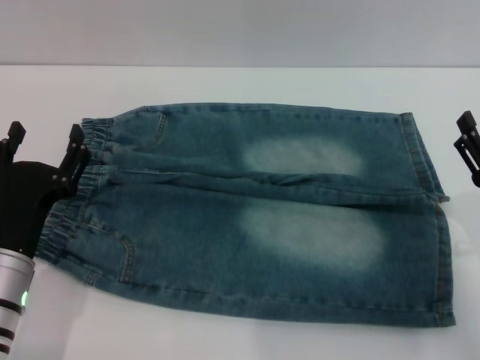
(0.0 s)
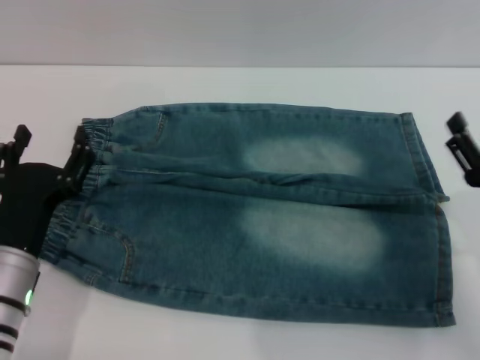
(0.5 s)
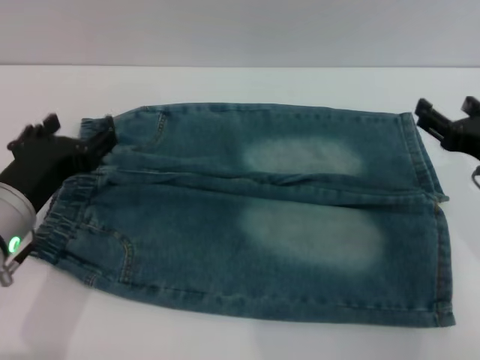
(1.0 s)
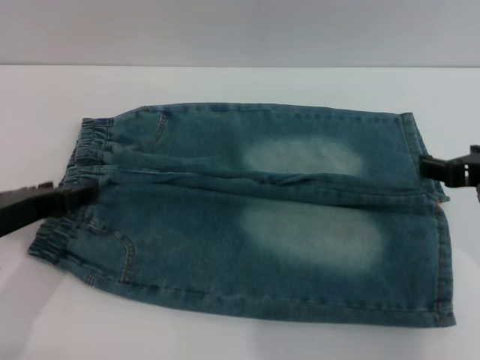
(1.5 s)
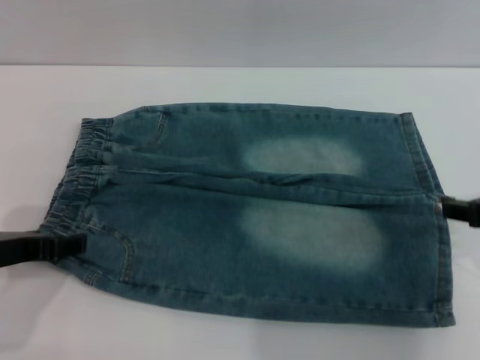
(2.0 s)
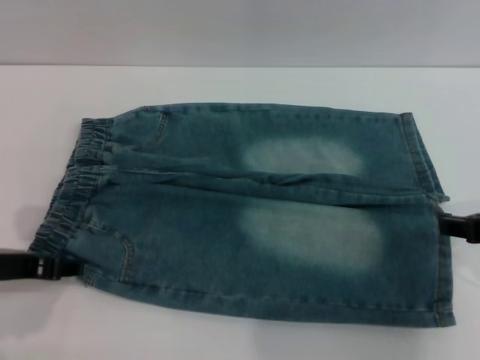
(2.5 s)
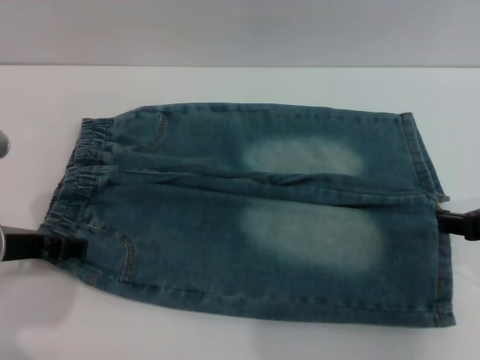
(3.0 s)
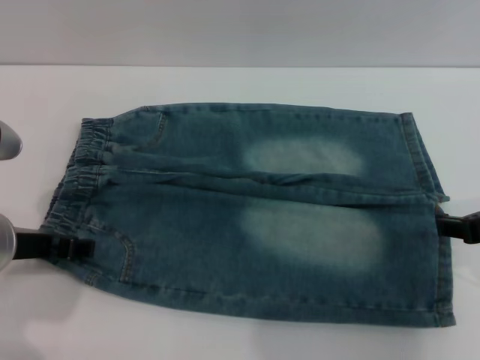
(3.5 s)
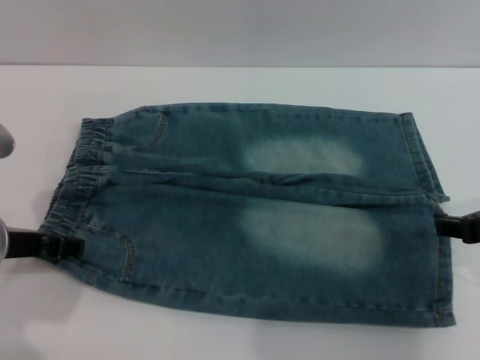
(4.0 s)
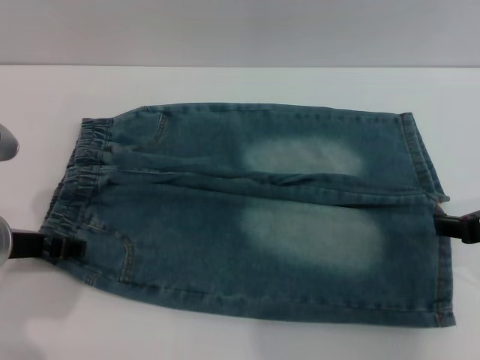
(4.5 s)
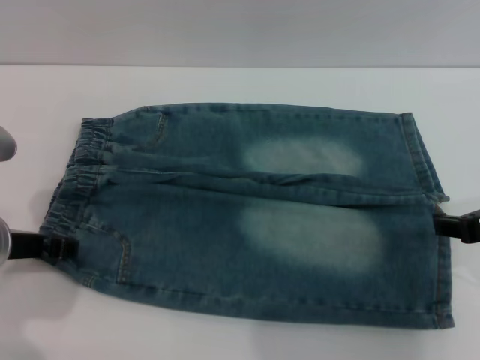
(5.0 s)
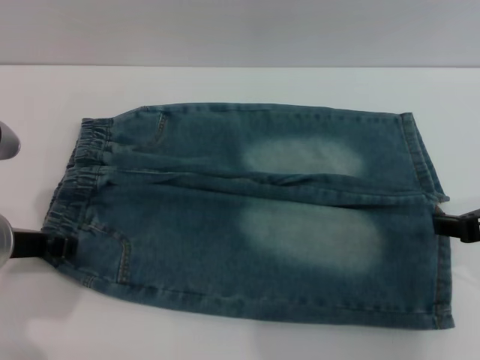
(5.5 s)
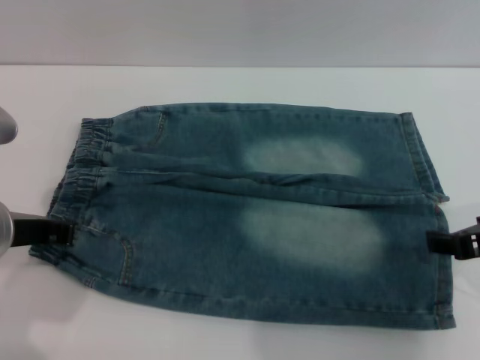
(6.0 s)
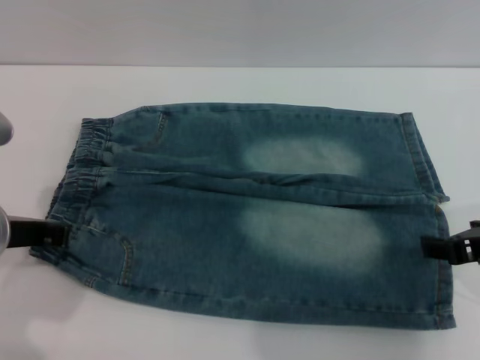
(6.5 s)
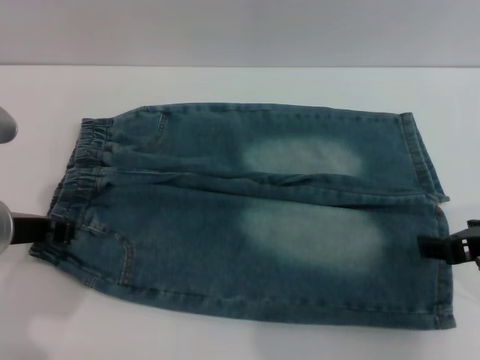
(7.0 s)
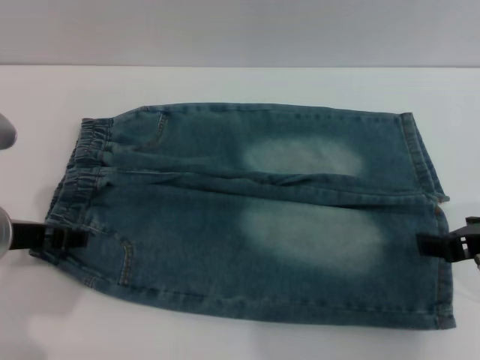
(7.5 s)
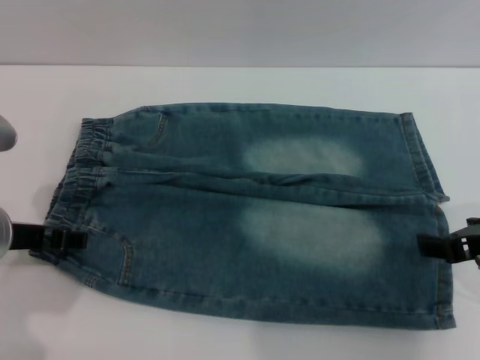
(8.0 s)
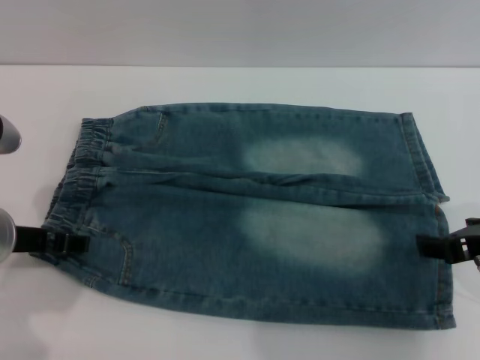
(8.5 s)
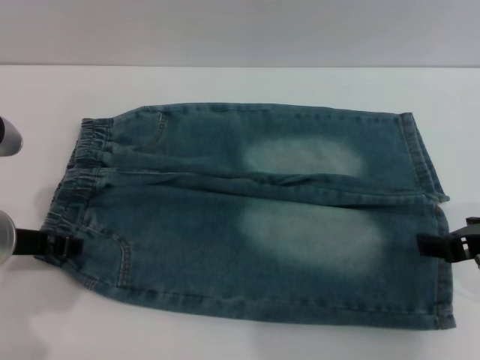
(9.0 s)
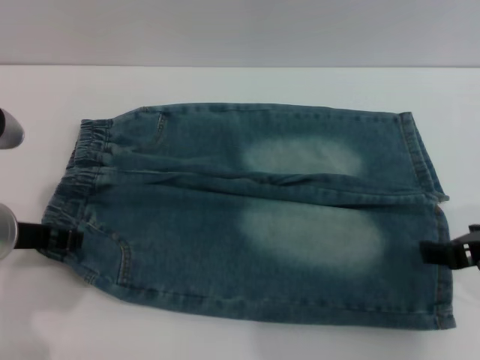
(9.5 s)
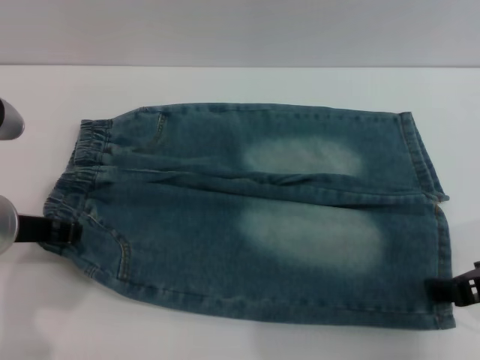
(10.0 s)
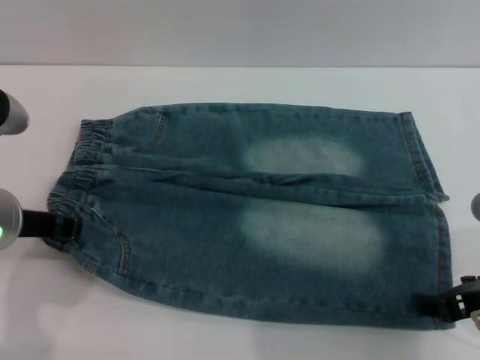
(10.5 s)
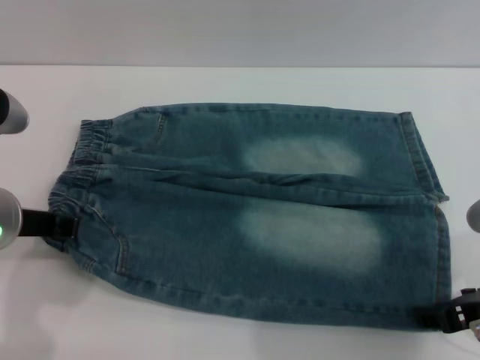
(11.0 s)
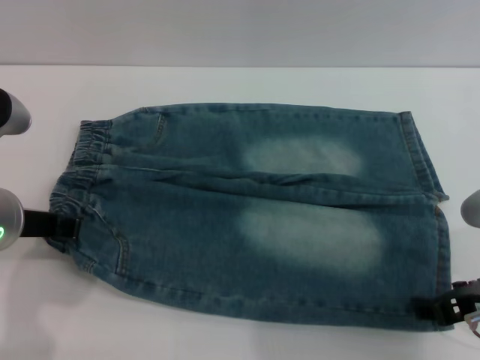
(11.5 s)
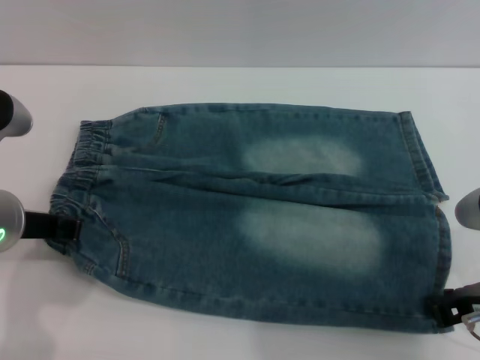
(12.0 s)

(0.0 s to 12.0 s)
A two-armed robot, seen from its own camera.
0.0 s - 2.0 s: Both grippers move upward, approximately 10 cm.
2.0 s - 4.0 s: The grippers move only a little.
4.0 s - 6.0 s: The left gripper closes.
6.0 s - 8.0 s: The left gripper opens.
8.0 s - 10.0 s: The left gripper closes up.
10.0 s - 12.0 s: The right gripper closes up.

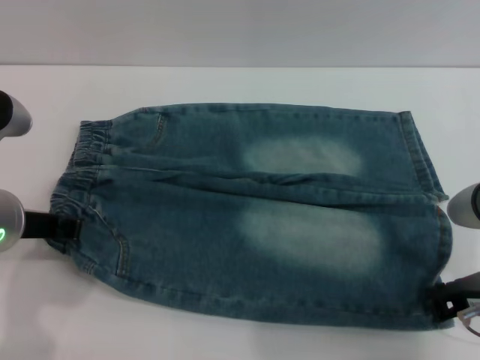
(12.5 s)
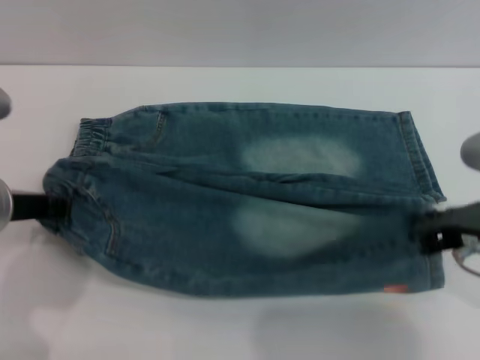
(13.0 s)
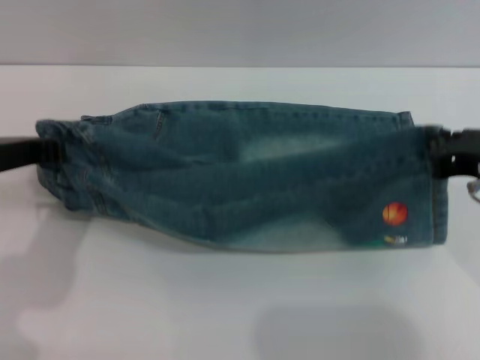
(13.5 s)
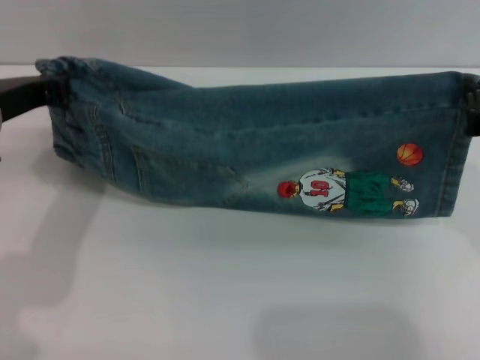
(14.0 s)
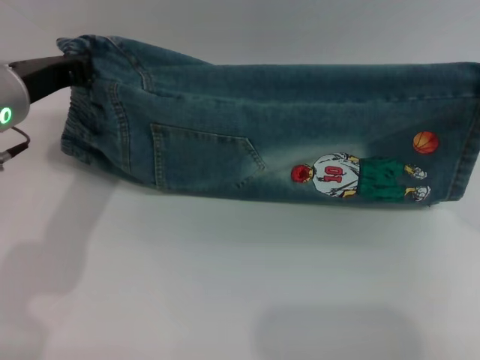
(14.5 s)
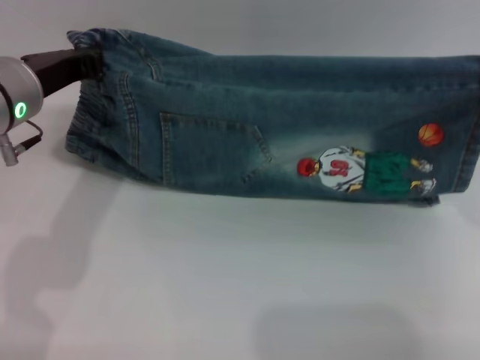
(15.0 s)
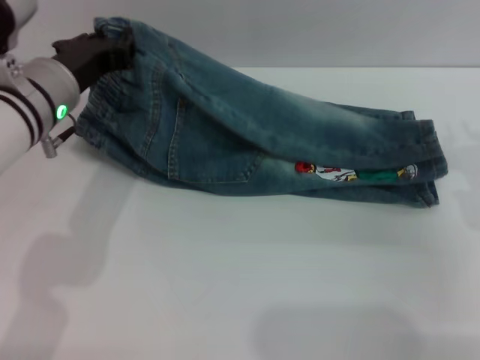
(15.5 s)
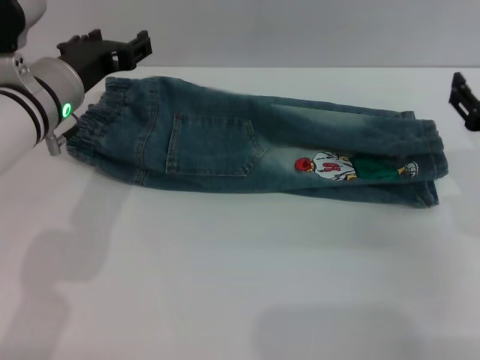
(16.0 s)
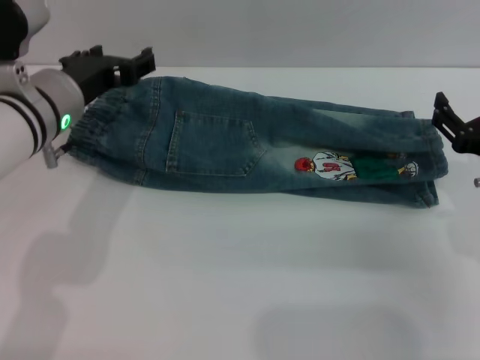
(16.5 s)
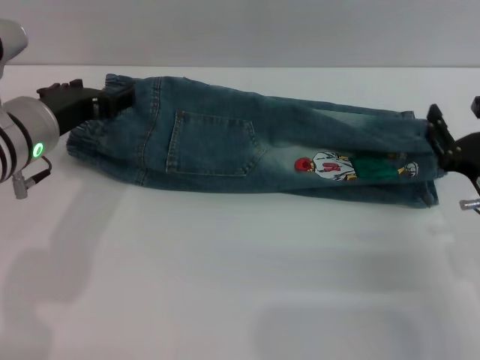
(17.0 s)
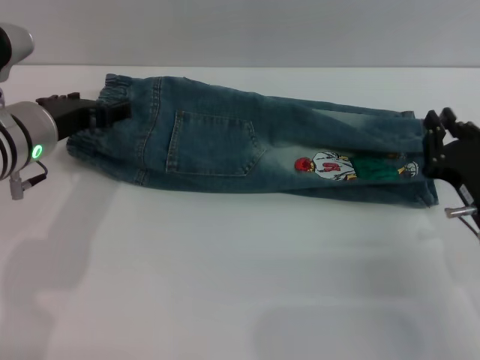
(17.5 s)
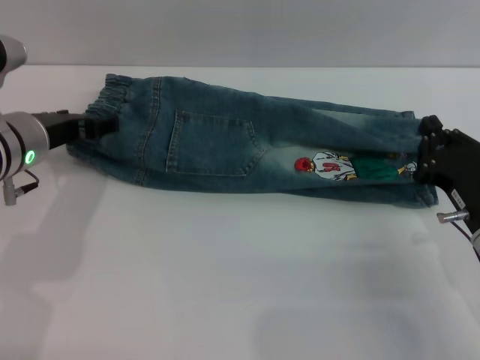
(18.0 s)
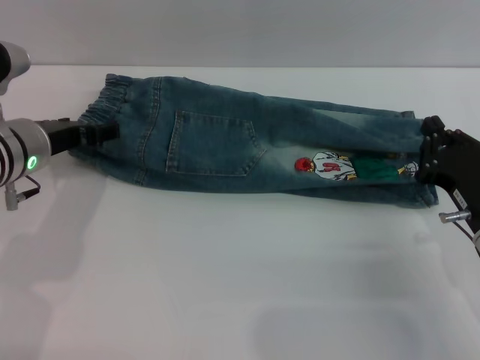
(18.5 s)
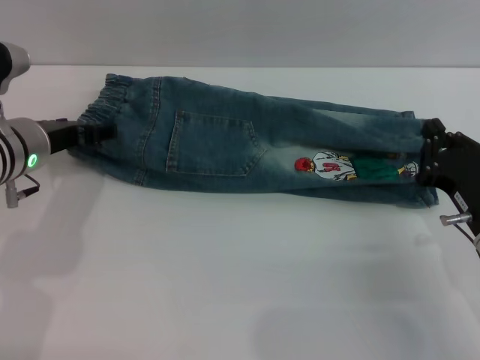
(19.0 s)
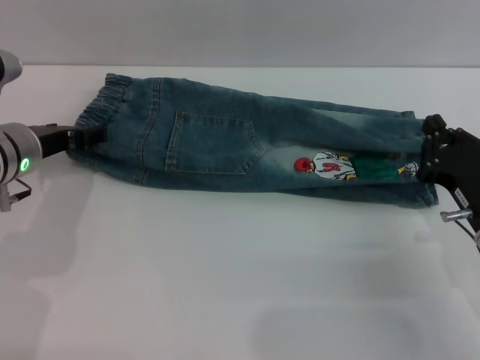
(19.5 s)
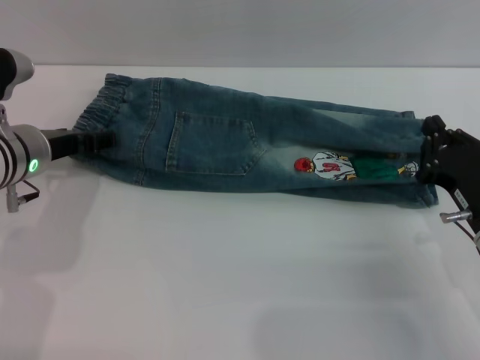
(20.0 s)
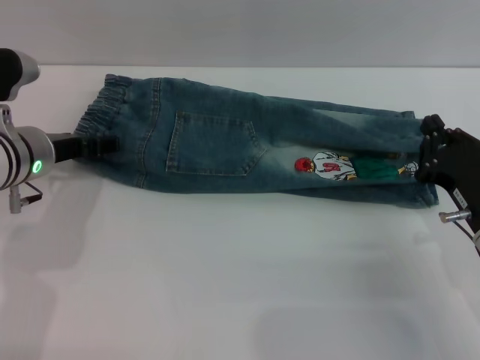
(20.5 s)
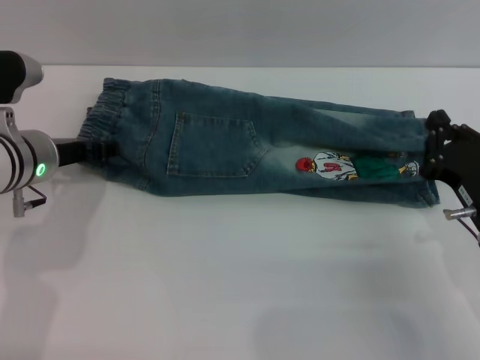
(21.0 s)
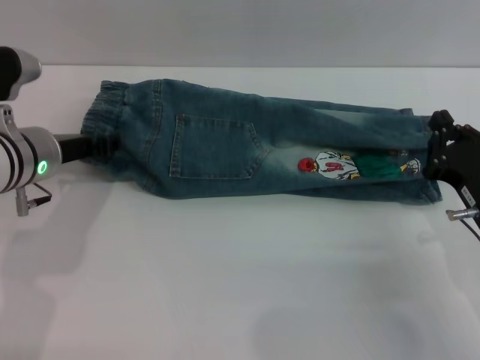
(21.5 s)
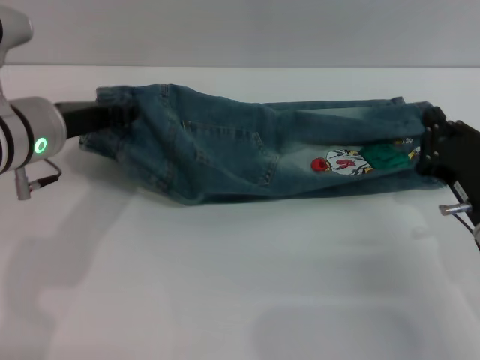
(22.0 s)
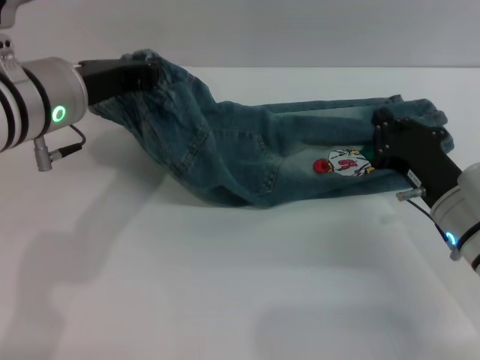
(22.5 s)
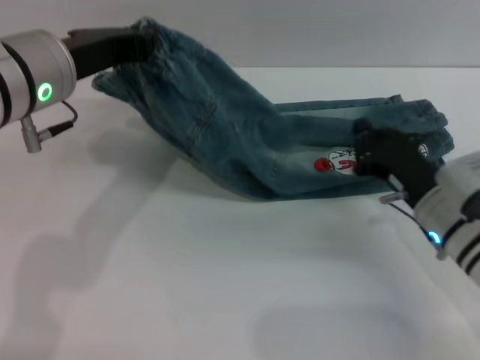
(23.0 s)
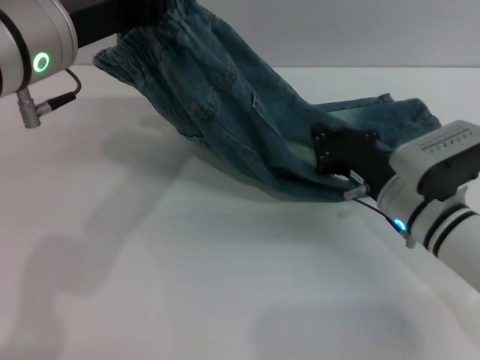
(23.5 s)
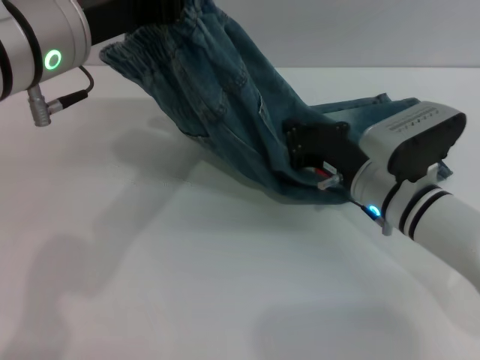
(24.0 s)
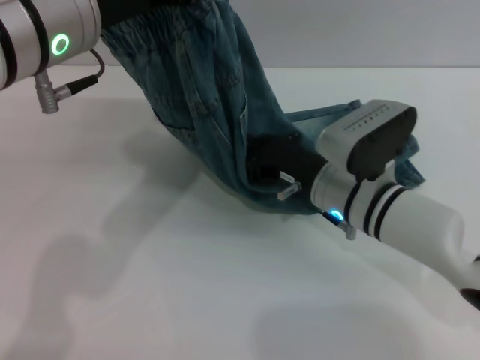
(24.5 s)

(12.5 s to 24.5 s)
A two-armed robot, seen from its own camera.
Step, 12.5 s - 19.0 s: Fold the bottom of the pants upward with both grippers.
12.5 s - 14.5 s: Both grippers move forward, about 5 cm.
14.5 s - 16.5 s: The left gripper ends up some 5 cm from where it was, and opens up; the right gripper is displaced downward by some 10 cm, and opens its fingers.
16.5 s - 18.5 s: The right gripper closes up.
18.5 s - 20.5 s: The grippers stay close to where they were, moving slightly.
20.5 s - 22.5 s: The left gripper is displaced upward and to the right by roughly 10 cm, and closes.
22.5 s - 24.5 s: The right gripper moves to the left, some 10 cm. The left gripper moves upward, some 10 cm.

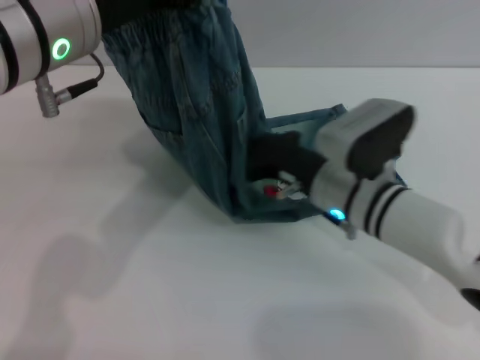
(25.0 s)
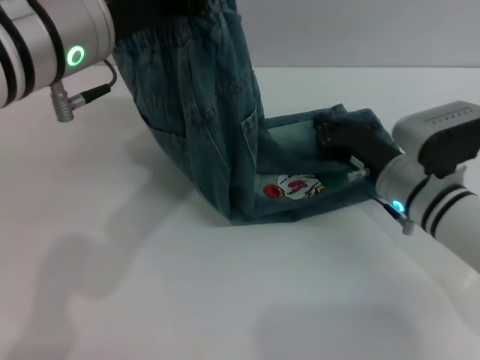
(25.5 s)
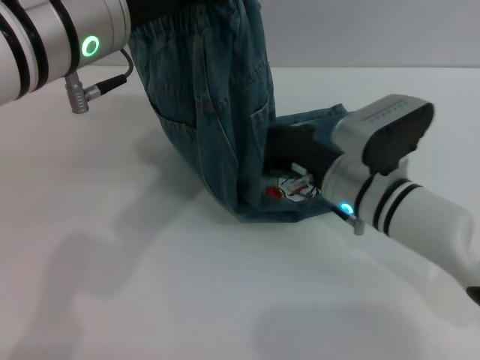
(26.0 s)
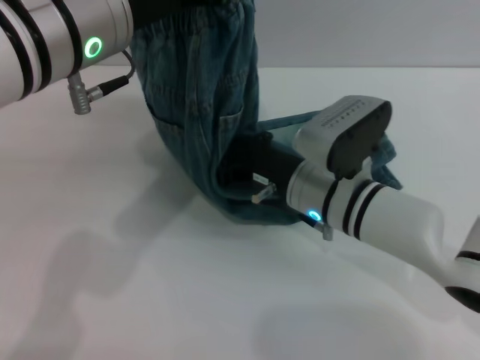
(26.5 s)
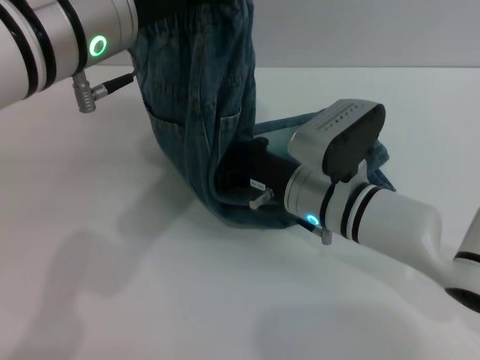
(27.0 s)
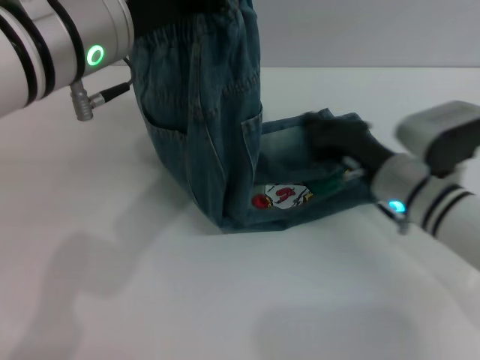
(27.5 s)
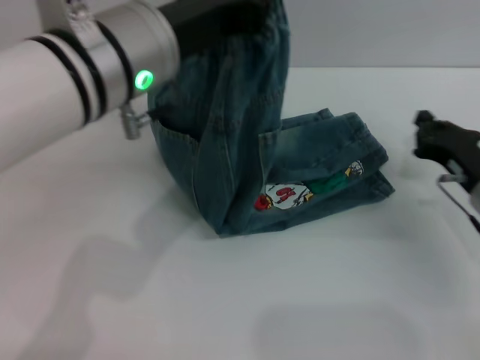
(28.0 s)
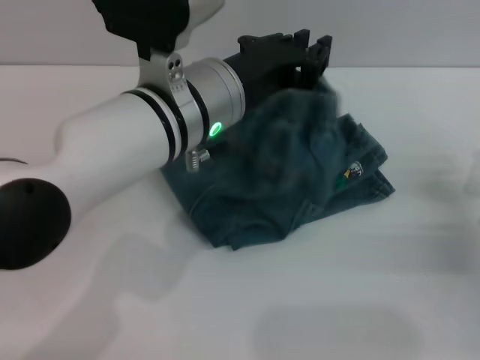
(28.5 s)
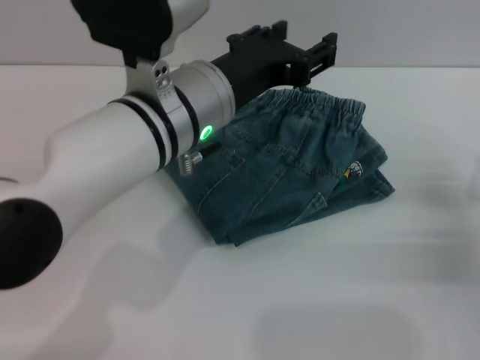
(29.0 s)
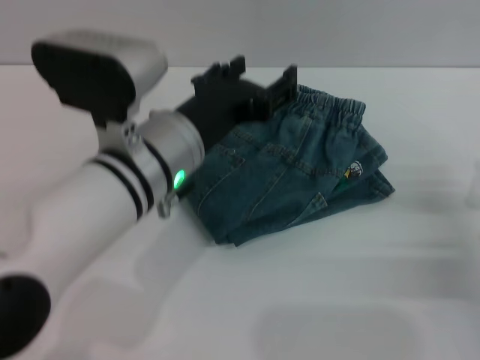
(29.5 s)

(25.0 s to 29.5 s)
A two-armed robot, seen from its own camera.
Step, 25.0 s - 29.0 s: Fold the pants from left to right with the left gripper.
25.0 s - 27.0 s: There are only small adjustments of the grippers.
27.0 s - 29.5 s: The right gripper heads to the right, covering approximately 25 cm, while the left gripper shifts some 10 cm downward, and opens.
